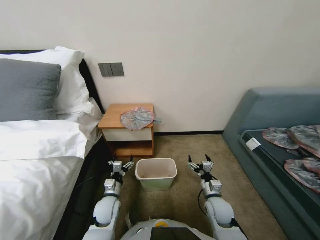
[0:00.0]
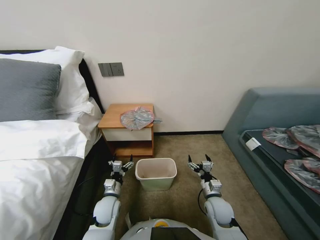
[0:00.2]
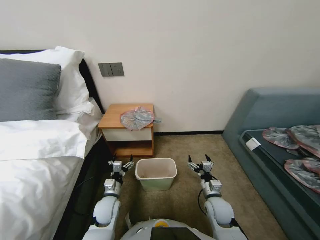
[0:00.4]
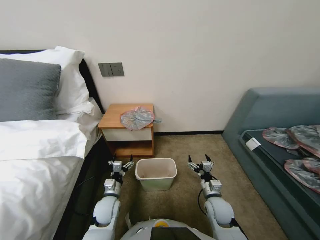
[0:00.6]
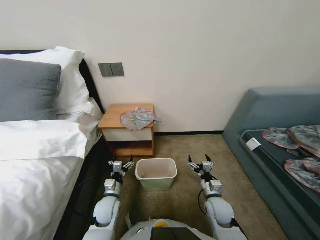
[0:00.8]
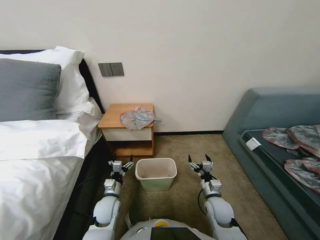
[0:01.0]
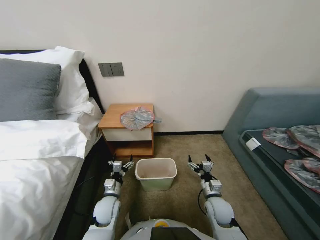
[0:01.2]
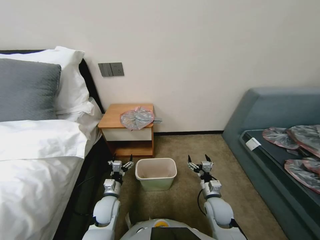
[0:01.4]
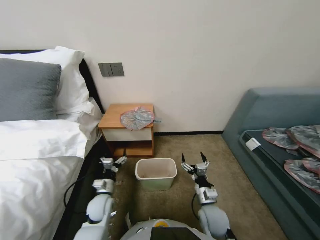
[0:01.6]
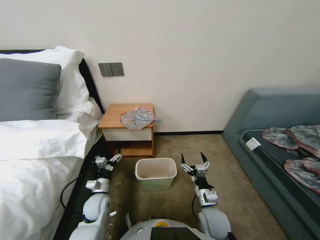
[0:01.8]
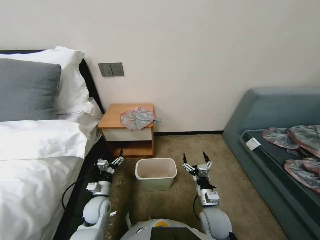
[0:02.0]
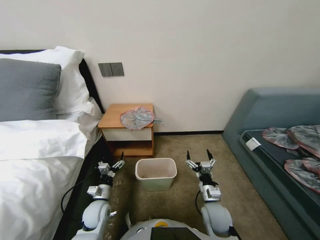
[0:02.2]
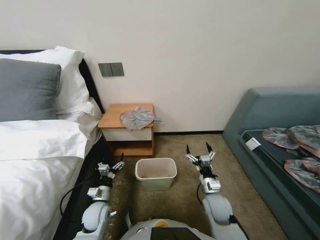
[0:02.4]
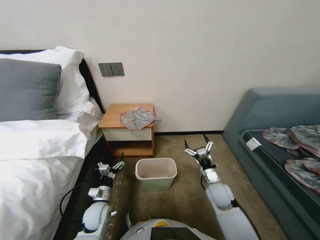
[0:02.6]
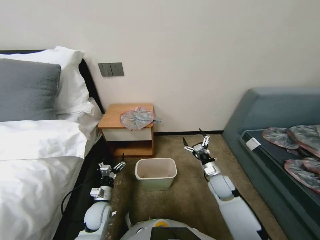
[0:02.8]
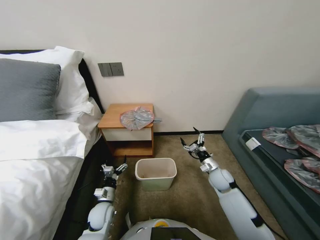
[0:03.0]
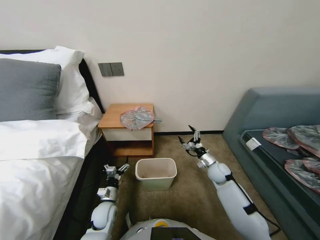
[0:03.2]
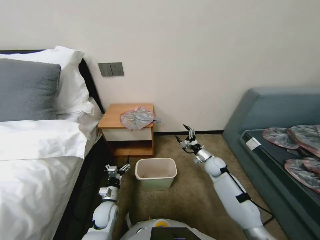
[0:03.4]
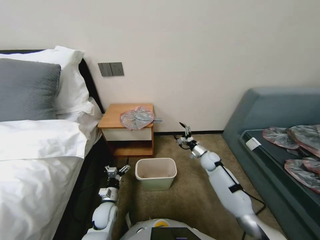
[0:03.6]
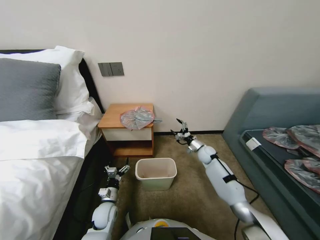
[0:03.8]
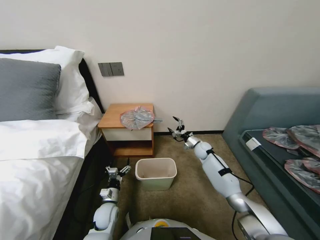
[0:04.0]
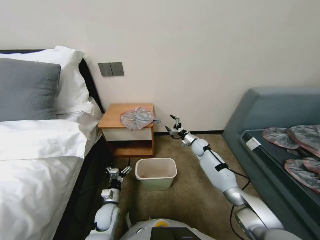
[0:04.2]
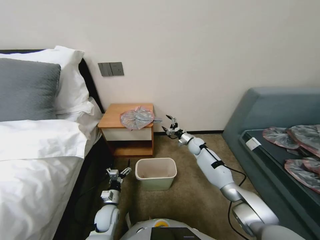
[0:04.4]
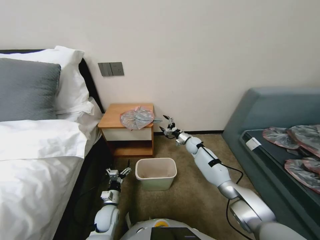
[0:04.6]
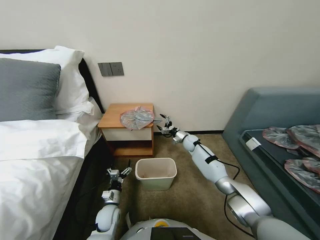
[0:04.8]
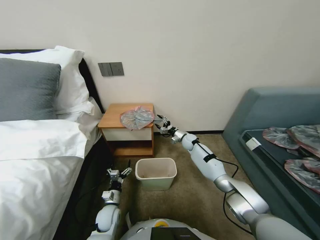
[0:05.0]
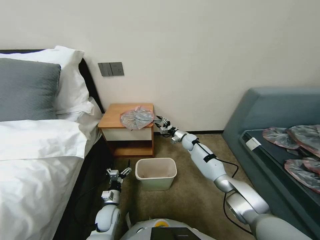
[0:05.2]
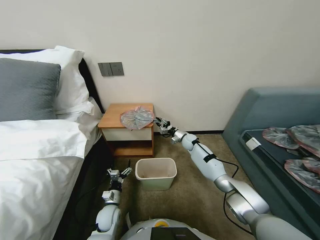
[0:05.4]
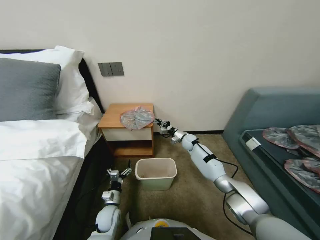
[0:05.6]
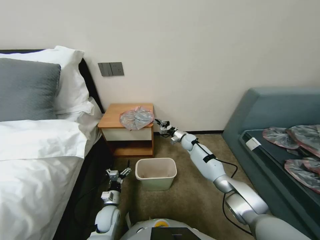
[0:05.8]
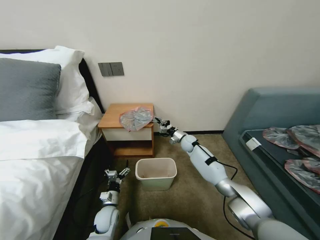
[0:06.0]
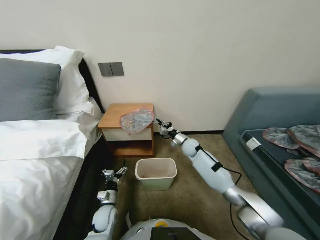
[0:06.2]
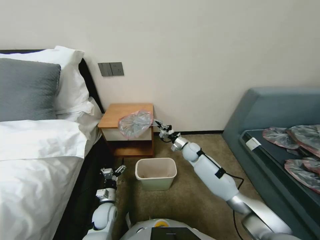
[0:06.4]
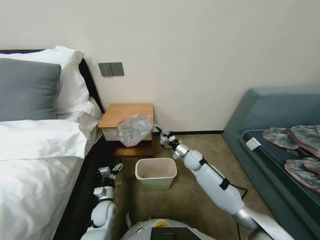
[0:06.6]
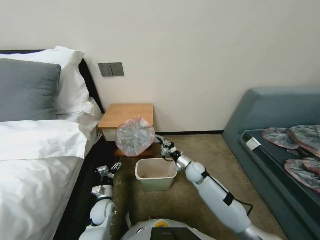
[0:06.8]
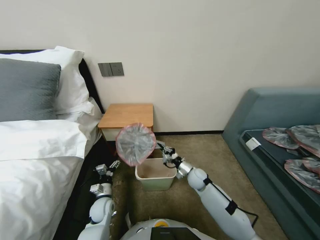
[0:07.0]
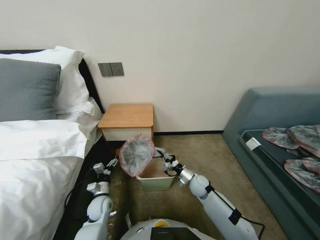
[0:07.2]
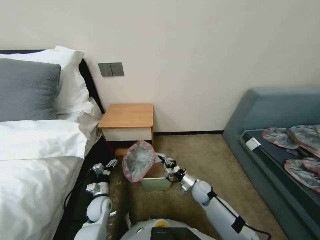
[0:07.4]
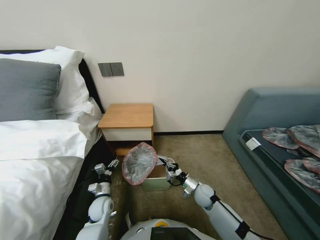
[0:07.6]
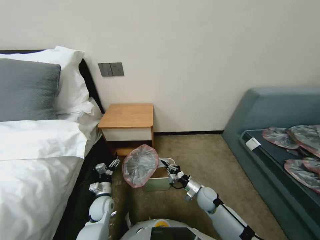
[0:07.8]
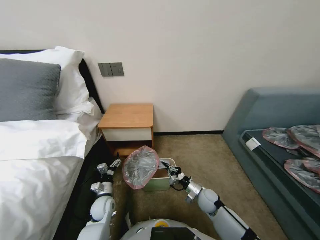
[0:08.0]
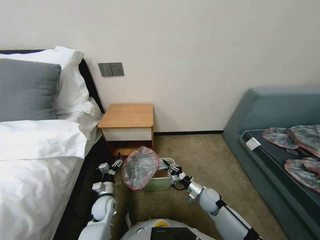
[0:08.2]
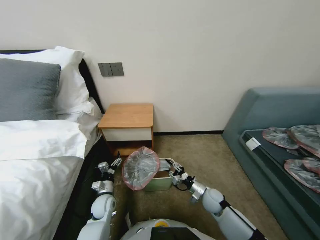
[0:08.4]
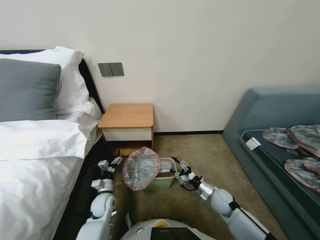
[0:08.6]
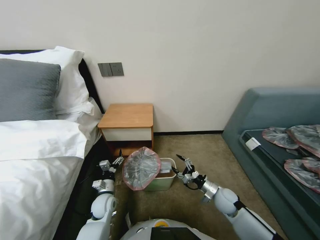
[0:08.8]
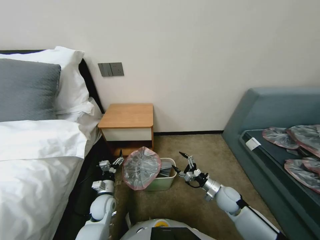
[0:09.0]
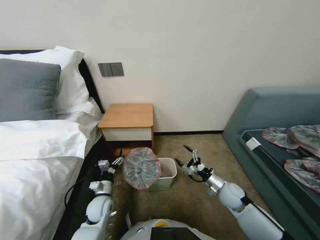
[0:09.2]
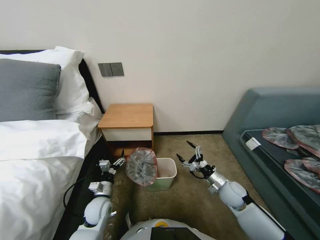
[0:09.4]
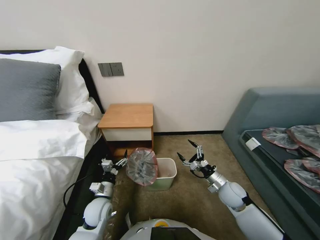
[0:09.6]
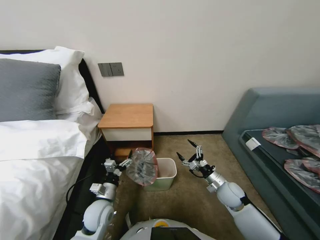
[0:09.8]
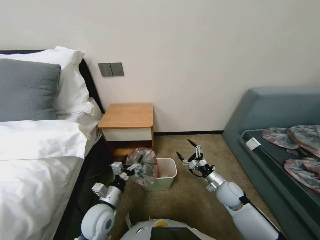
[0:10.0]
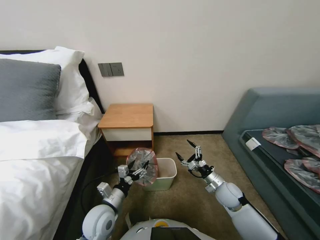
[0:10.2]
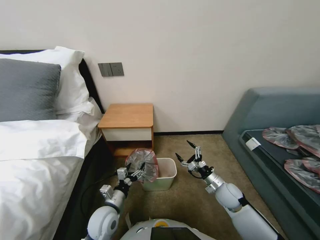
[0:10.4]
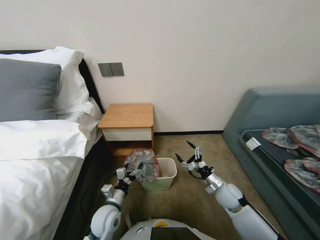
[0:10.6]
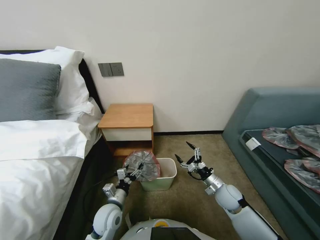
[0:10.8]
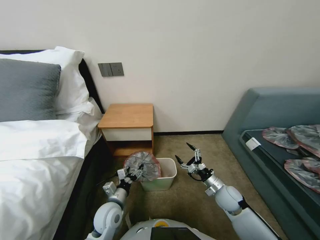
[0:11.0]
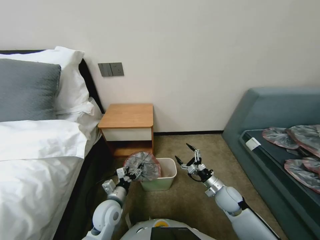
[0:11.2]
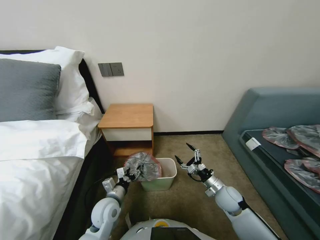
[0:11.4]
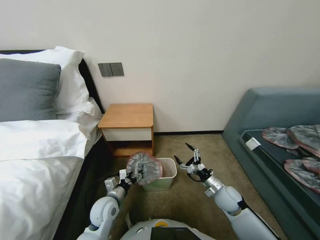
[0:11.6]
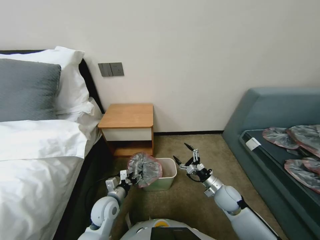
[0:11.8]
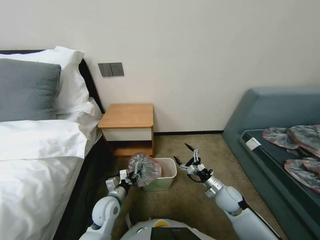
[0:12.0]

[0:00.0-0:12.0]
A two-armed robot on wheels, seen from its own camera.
Task of the whole recording: Pick up the garbage bag from the table and place it over the trash can.
0:01.6 to 0:03.0: The right gripper travels forward and to the right by roughly 10 cm.
0:03.0 to 0:04.4: The right gripper goes some 20 cm forward.
0:04.4 to 0:06.0: The right gripper shifts approximately 5 cm to the left, and closes.
0:06.0 to 0:07.6: The left gripper ends up roughly 5 cm from where it was; the right gripper goes some 25 cm backward.
0:07.6 to 0:09.0: The right gripper shifts approximately 10 cm to the right, and opens its fingers.
0:09.0 to 0:10.4: The left gripper heads upward and backward, covering roughly 10 cm.
0:10.4 to 0:12.0: The left gripper closes its fingers.

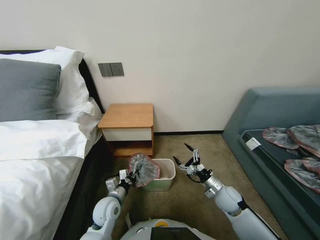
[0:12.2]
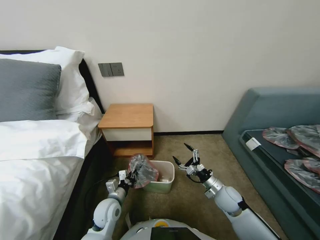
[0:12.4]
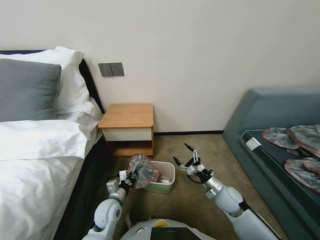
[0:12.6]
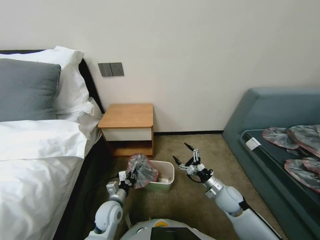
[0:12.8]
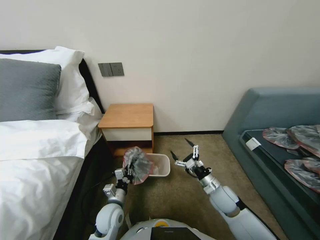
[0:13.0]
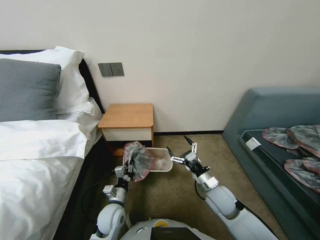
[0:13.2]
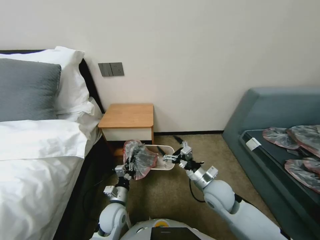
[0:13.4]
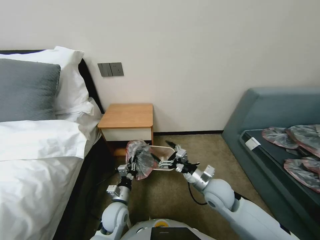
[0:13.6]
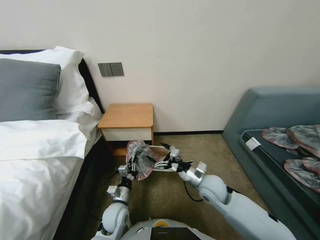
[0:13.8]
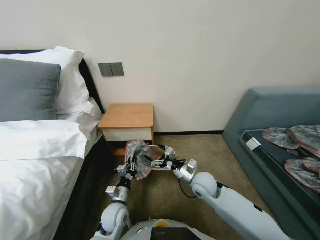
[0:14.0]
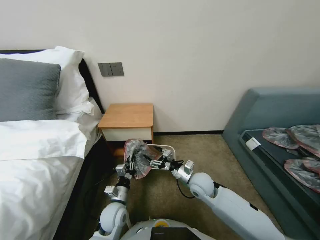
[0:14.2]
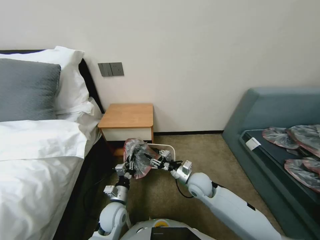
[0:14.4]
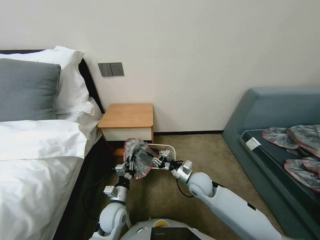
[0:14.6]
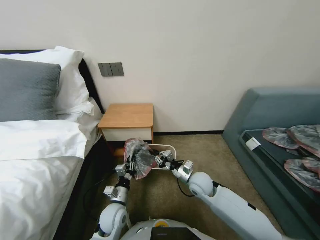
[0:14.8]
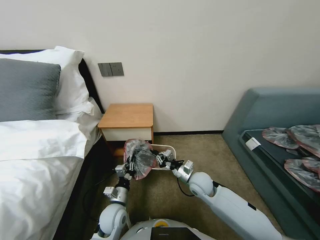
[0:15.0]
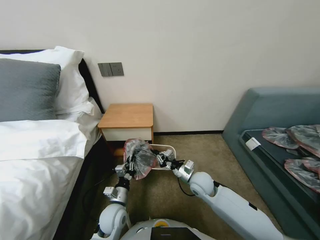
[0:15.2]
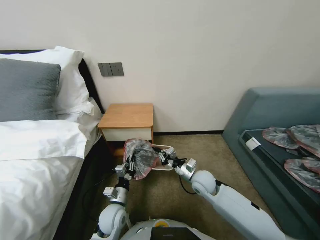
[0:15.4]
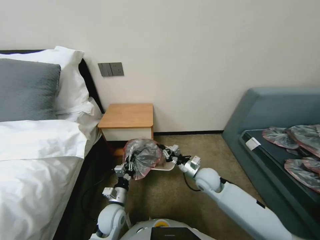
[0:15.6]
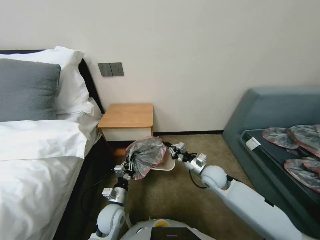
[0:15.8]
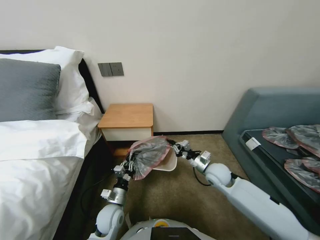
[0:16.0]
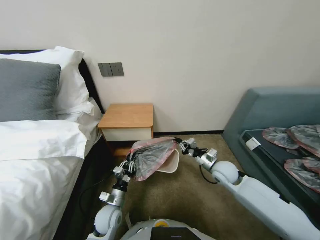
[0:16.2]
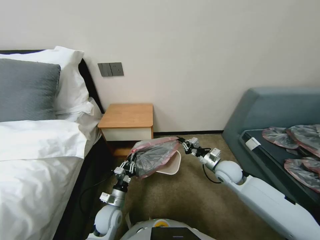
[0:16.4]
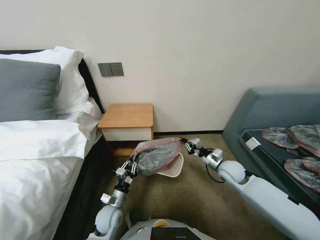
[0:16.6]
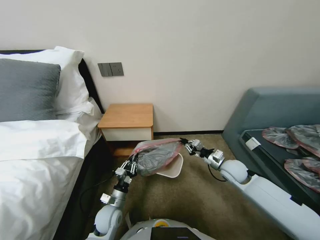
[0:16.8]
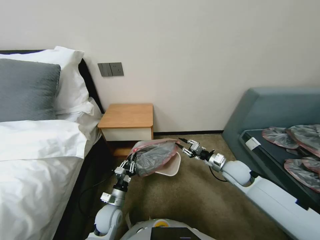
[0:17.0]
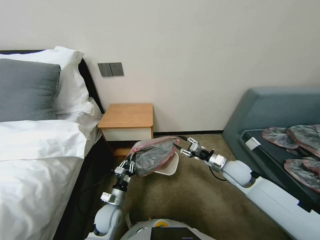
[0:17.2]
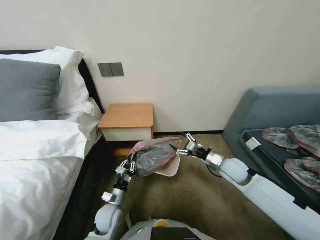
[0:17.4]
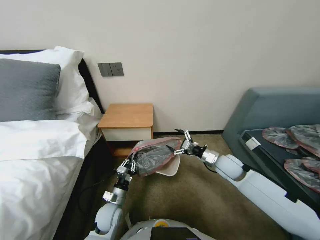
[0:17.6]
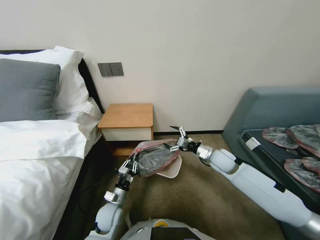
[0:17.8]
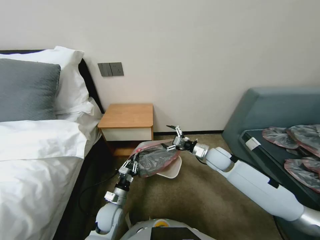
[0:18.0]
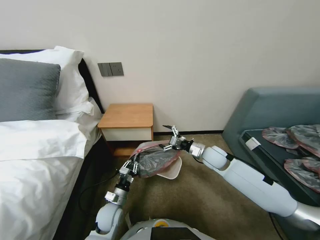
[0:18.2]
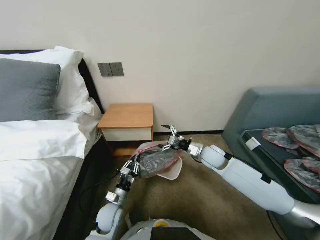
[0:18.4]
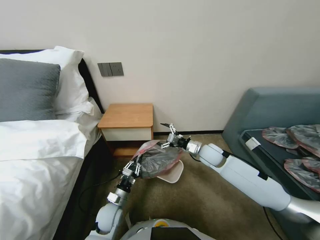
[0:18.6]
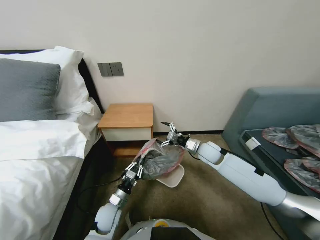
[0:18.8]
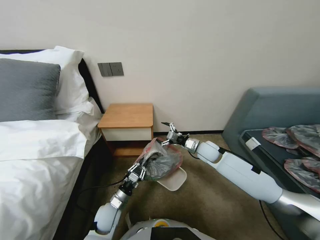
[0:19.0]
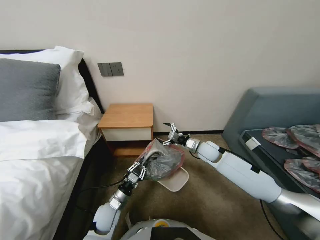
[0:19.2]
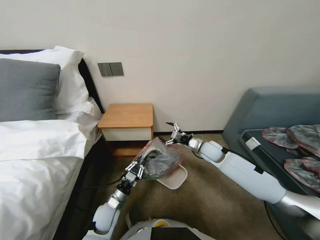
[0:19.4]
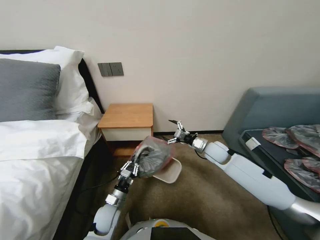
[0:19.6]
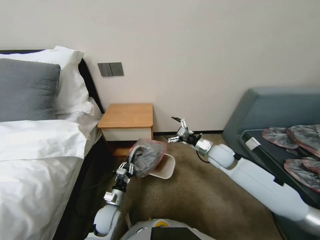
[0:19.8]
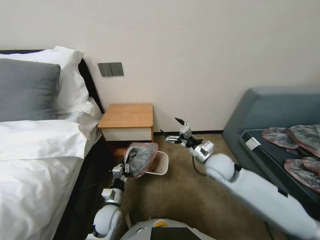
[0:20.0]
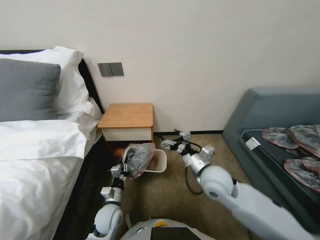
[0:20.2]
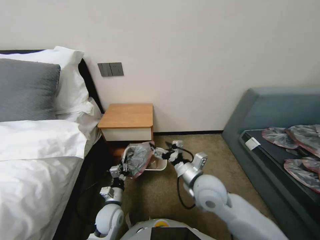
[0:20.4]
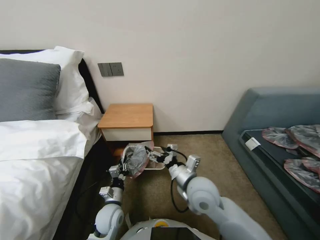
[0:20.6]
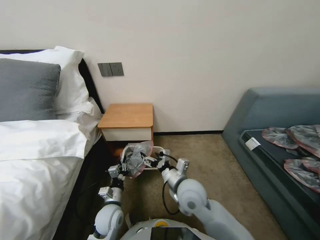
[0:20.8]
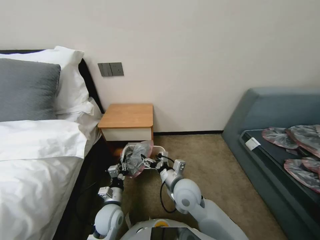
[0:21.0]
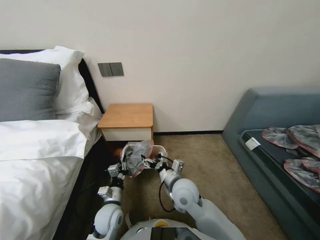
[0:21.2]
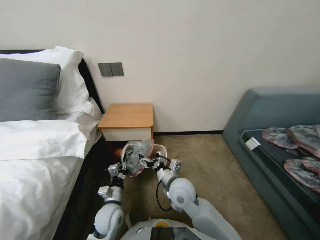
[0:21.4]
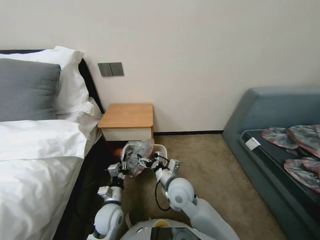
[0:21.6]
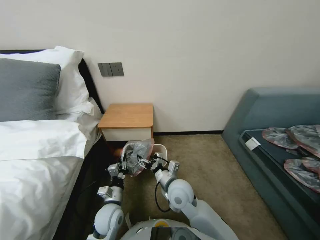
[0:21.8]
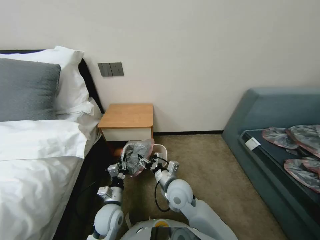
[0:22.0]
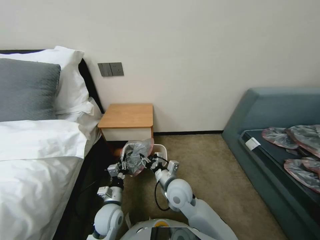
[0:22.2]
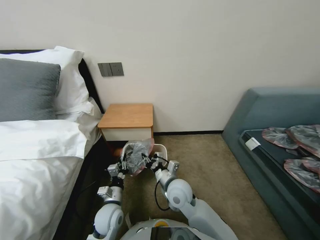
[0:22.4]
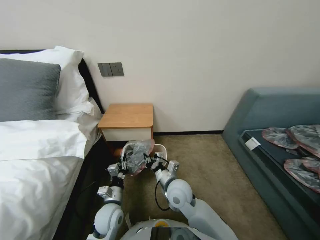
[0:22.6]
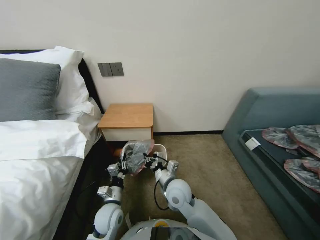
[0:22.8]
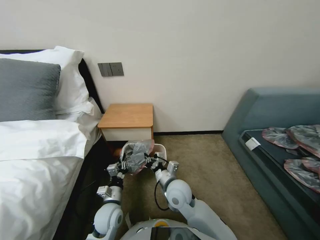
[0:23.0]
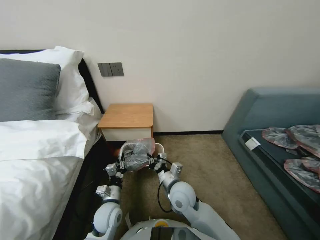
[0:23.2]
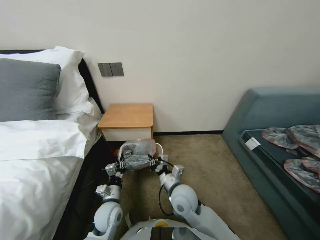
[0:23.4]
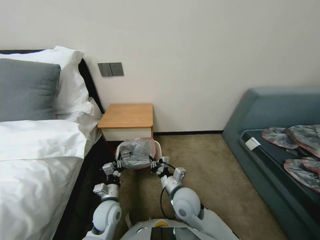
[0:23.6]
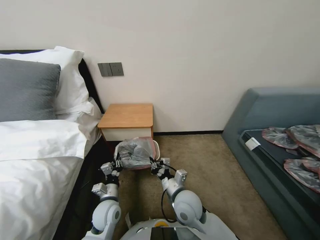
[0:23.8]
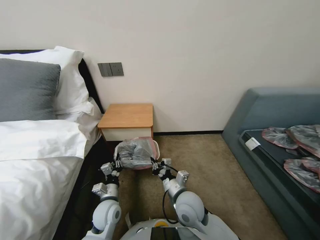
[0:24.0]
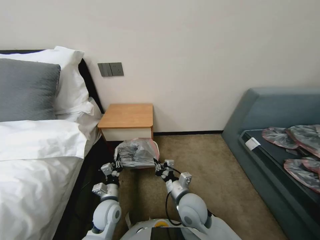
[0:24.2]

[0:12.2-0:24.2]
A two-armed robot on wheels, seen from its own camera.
Task of the whole recording: Pick up the garbage bag from the table and place it over the trash can.
0:12.2 to 0:13.8: The right gripper heads to the left and upward, covering some 15 cm.
0:13.8 to 0:15.2: The right gripper moves about 5 cm, and closes up.
0:15.2 to 0:16.6: The right gripper shifts approximately 10 cm to the right.
0:16.6 to 0:18.2: The right gripper heads to the left, covering roughly 5 cm, and opens its fingers.
0:19.8 to 0:21.2: The right gripper is displaced to the left and backward by about 25 cm.
0:21.2 to 0:22.6: The right gripper closes its fingers.
0:22.6 to 0:24.2: The right gripper changes place by roughly 5 cm.
